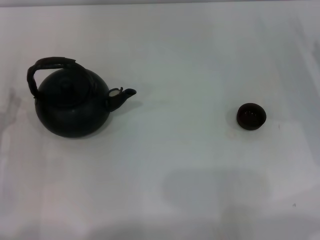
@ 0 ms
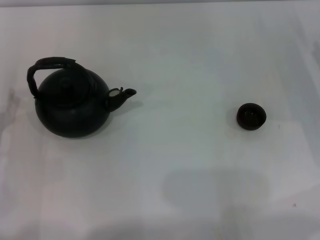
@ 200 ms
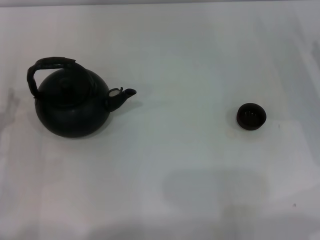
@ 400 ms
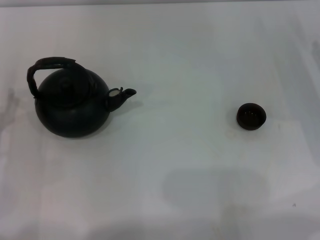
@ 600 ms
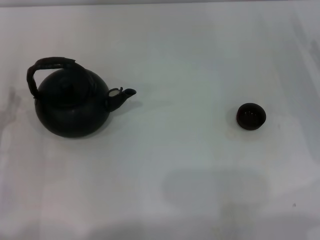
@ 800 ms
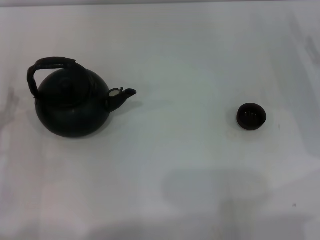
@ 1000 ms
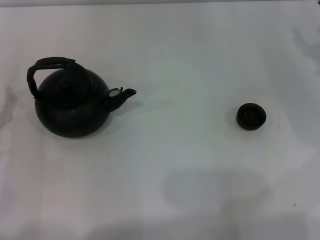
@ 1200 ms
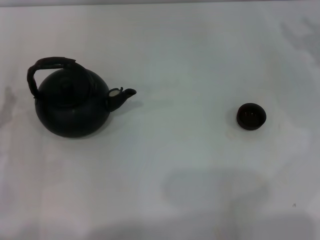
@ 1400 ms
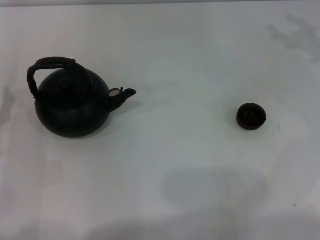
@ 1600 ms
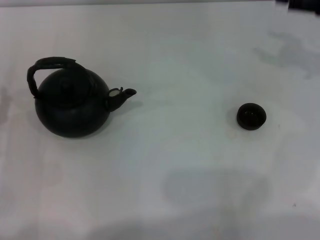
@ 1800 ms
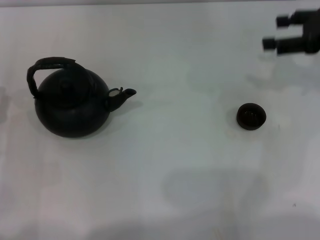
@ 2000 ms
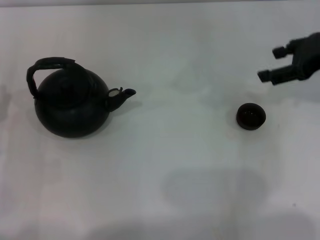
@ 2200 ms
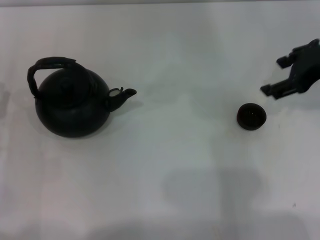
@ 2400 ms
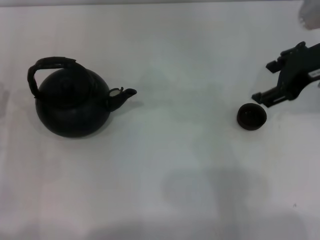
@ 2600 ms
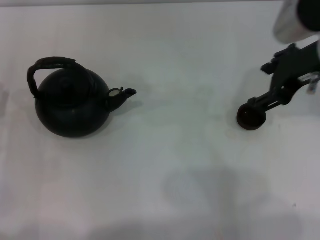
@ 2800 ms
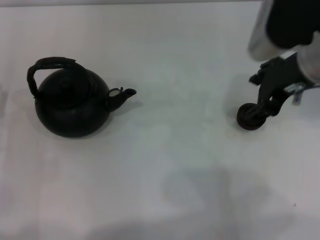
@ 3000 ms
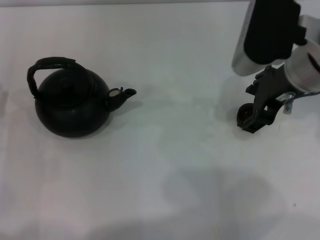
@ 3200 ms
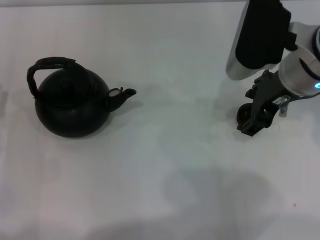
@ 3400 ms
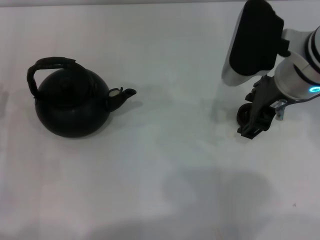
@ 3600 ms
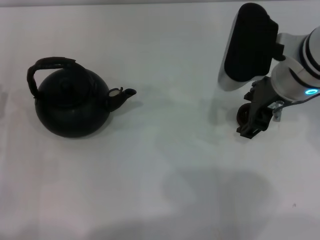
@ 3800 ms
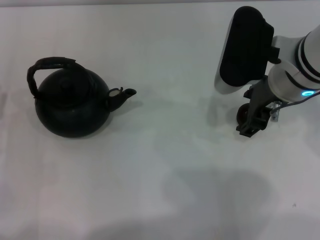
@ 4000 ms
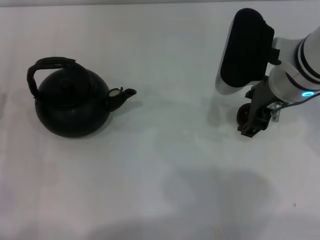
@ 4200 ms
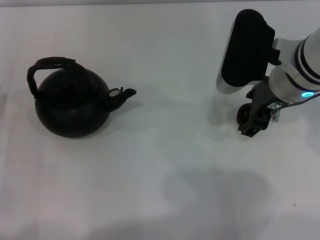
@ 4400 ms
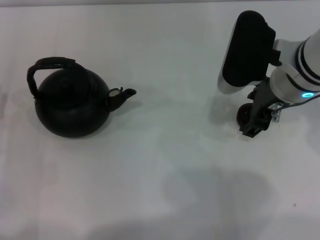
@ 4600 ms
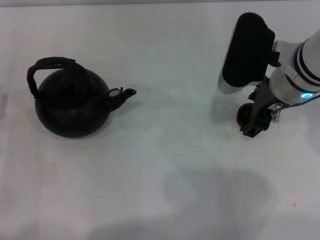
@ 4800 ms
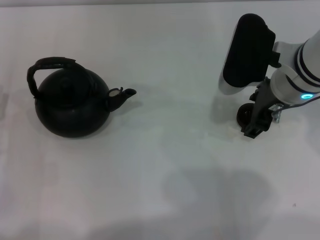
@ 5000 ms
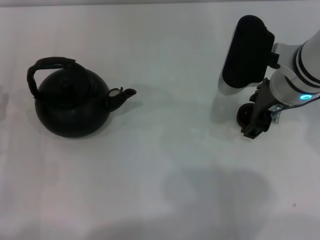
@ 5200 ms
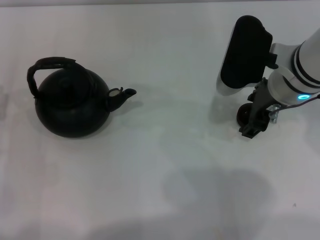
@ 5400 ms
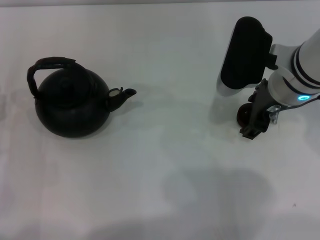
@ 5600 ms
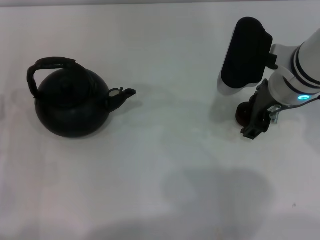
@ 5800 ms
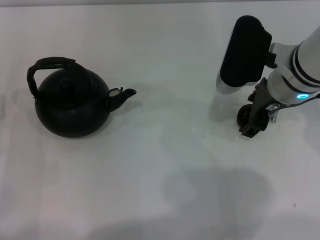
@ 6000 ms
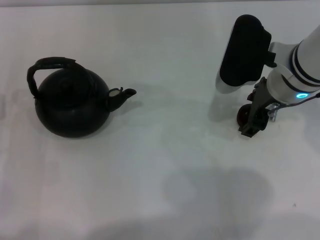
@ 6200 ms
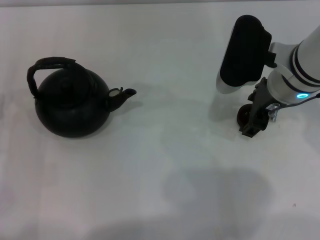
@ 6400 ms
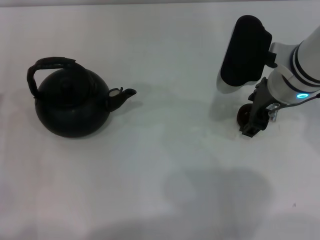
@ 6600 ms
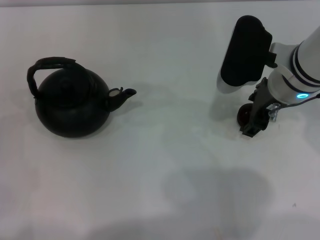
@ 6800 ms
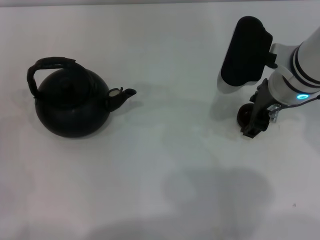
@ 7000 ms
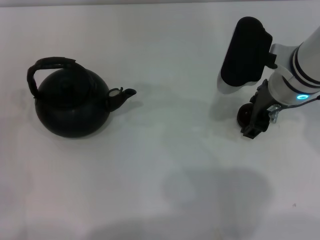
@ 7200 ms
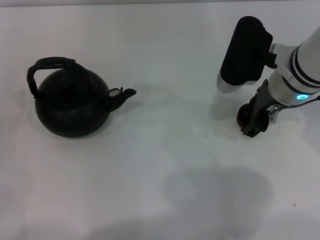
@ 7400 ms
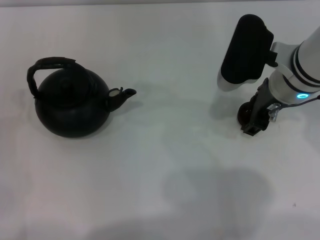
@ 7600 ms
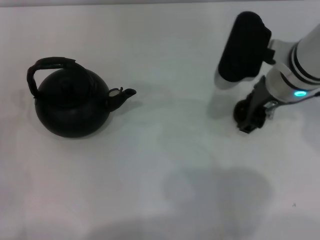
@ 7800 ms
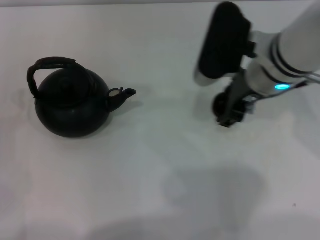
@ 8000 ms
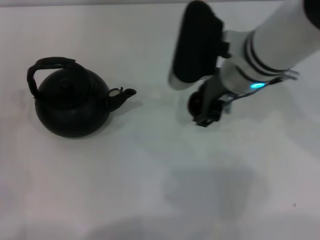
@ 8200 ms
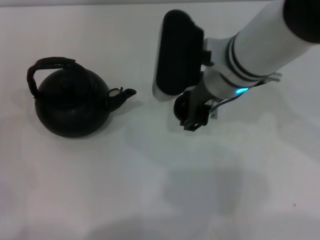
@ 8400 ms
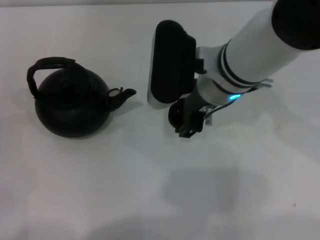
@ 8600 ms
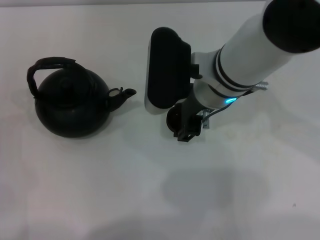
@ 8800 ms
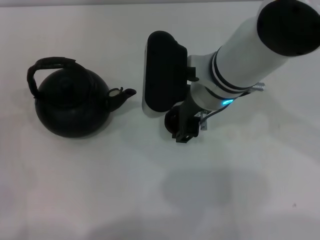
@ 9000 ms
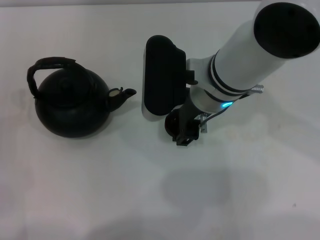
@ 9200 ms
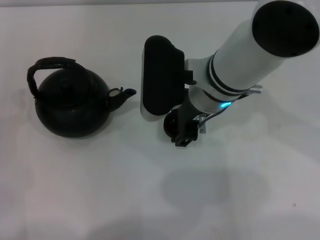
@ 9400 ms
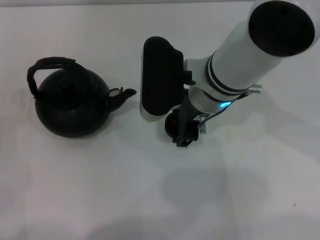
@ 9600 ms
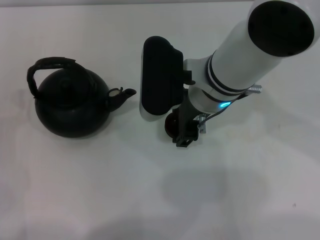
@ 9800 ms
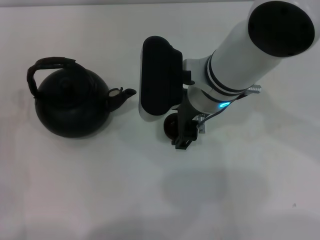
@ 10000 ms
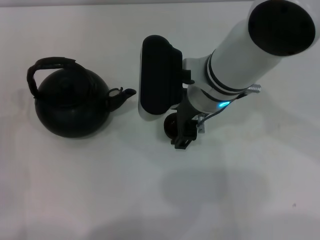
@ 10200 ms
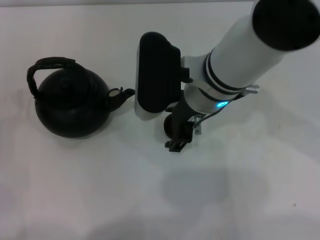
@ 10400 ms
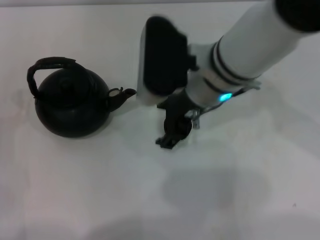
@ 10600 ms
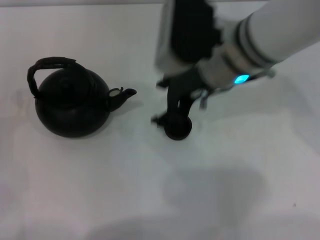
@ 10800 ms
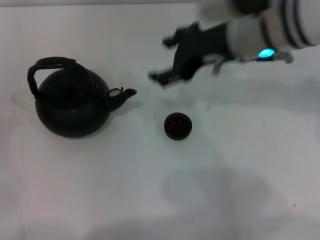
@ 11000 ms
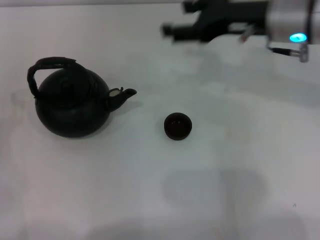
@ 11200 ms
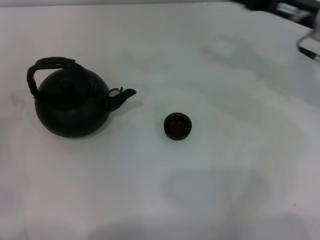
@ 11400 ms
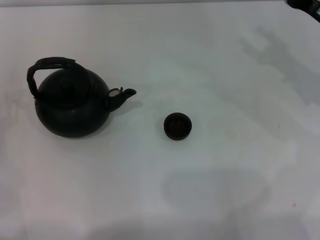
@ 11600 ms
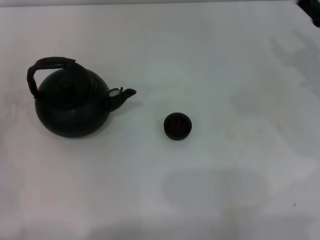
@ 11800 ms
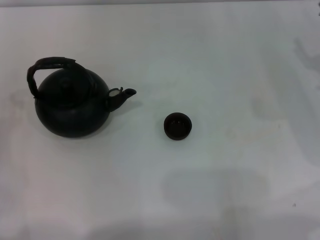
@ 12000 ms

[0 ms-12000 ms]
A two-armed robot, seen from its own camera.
Task of the whole recording: Grasp the handle of the teapot with one hand and pour tea into the teacup.
Step, 0 ms to 7600 ms: Pick up the teacup with the right gripper.
Step, 7800 ms to 10800 ms: Place the teacup in the center of view with the right gripper.
1600 ms to 3000 ms: The right gripper travels to the left by about 15 cm.
3000 ms to 4400 ms: The right gripper moves approximately 5 cm.
6000 ms to 7600 ms: The right gripper closes.
7600 ms to 9000 ms: The right gripper moves to the left, approximately 10 cm.
9000 ms to 10400 ms: The right gripper opens.
10400 ms to 12000 ms: The right gripper shifts roughly 30 cm to the right.

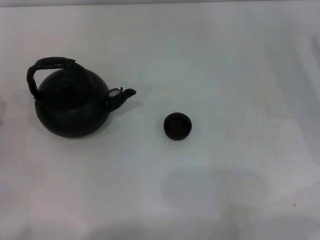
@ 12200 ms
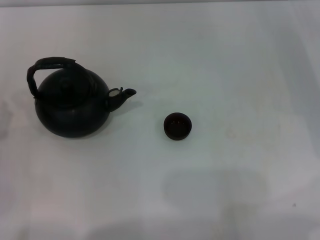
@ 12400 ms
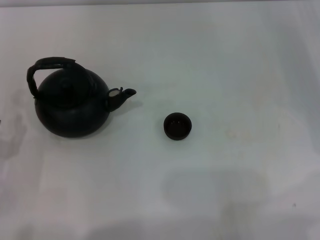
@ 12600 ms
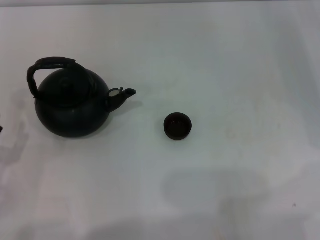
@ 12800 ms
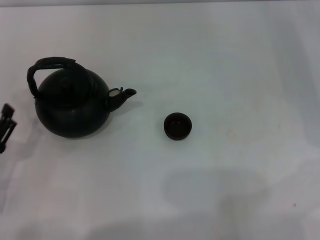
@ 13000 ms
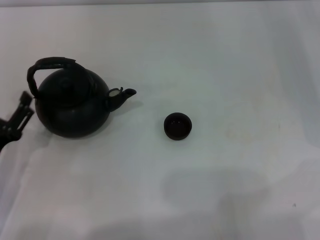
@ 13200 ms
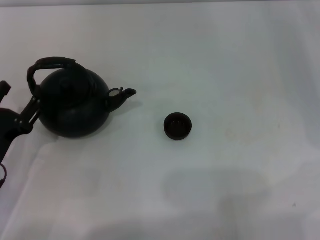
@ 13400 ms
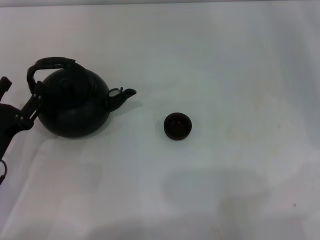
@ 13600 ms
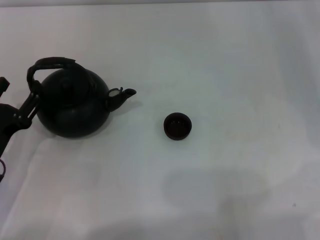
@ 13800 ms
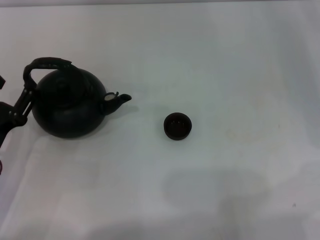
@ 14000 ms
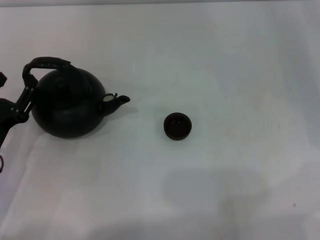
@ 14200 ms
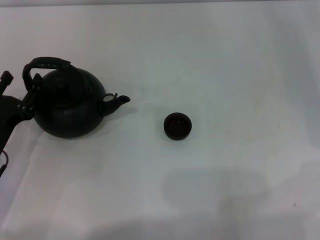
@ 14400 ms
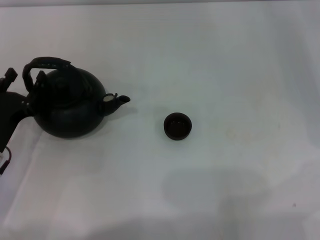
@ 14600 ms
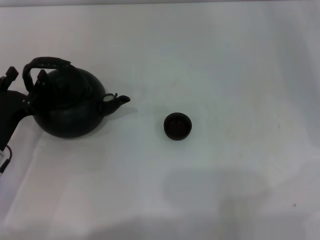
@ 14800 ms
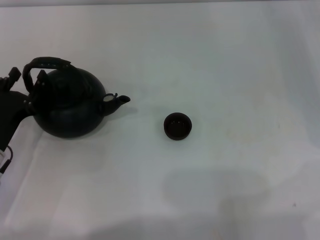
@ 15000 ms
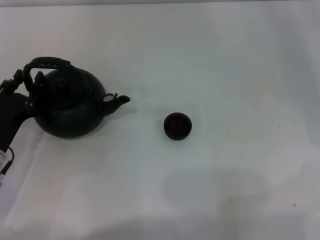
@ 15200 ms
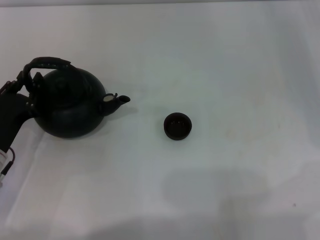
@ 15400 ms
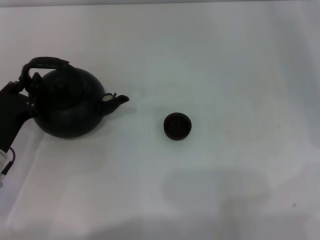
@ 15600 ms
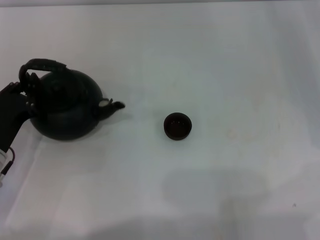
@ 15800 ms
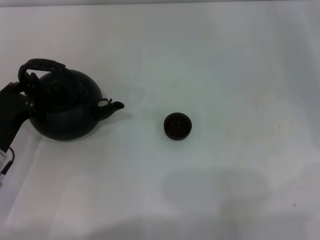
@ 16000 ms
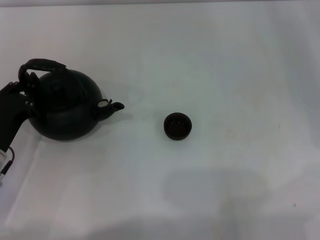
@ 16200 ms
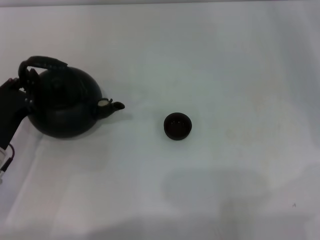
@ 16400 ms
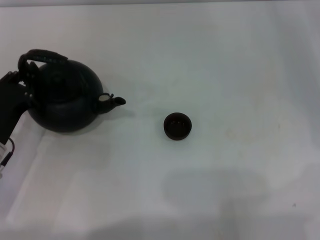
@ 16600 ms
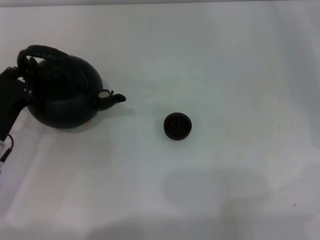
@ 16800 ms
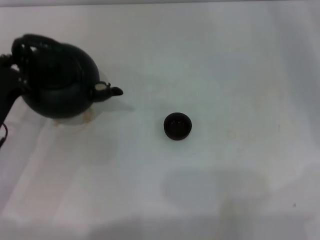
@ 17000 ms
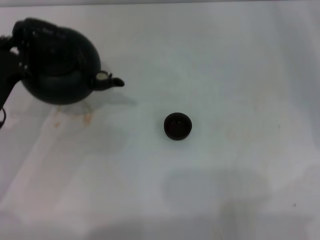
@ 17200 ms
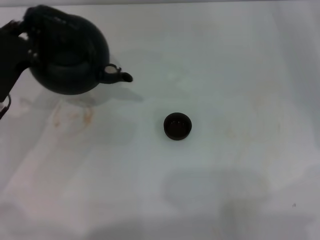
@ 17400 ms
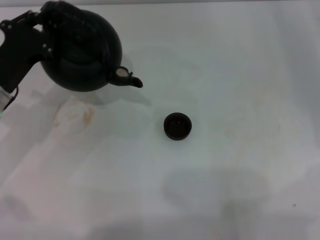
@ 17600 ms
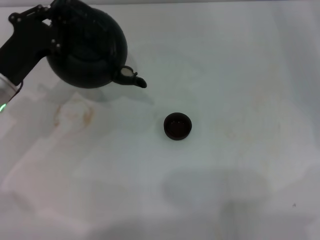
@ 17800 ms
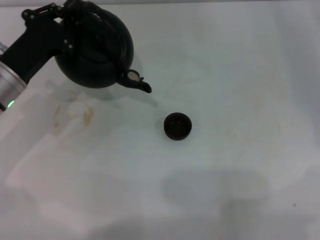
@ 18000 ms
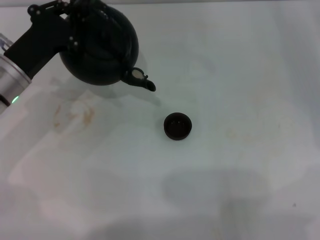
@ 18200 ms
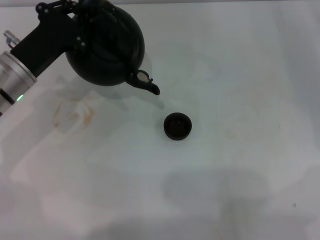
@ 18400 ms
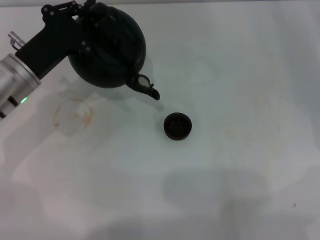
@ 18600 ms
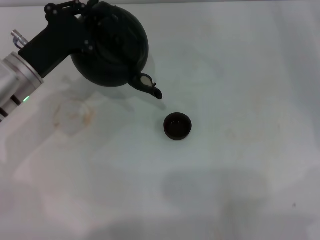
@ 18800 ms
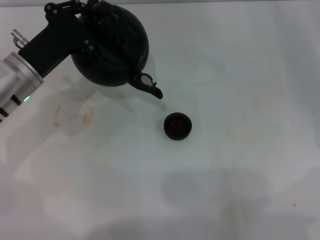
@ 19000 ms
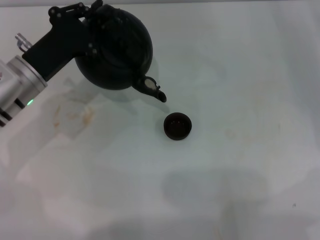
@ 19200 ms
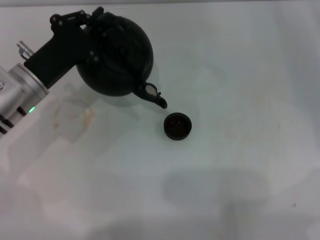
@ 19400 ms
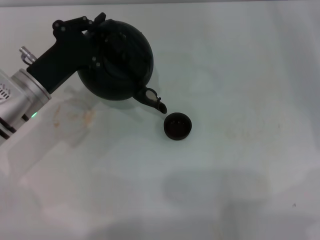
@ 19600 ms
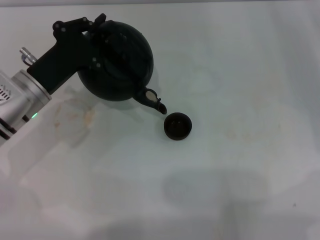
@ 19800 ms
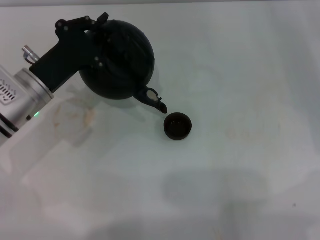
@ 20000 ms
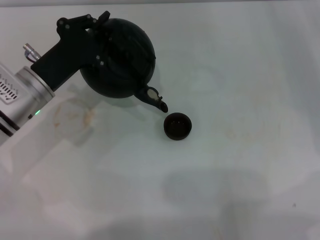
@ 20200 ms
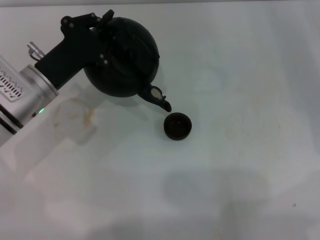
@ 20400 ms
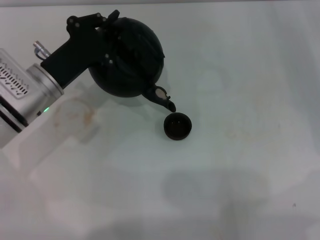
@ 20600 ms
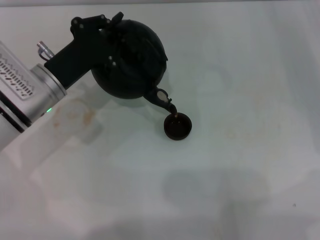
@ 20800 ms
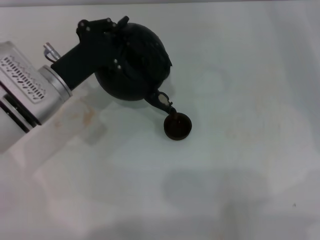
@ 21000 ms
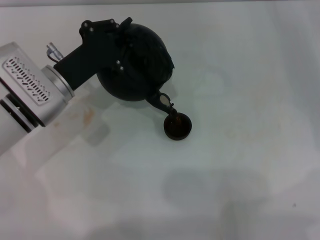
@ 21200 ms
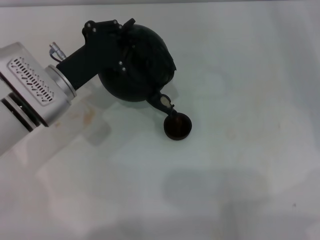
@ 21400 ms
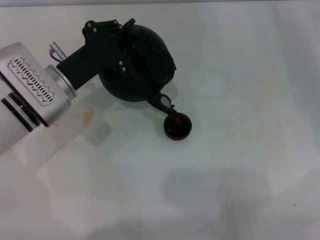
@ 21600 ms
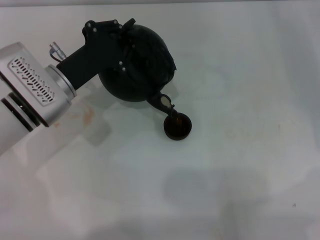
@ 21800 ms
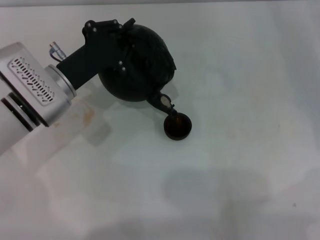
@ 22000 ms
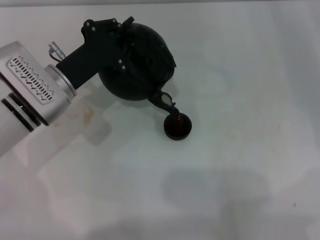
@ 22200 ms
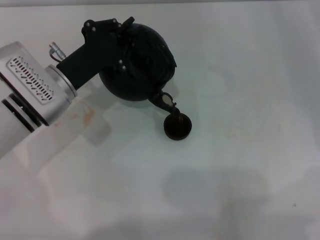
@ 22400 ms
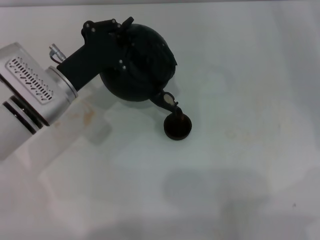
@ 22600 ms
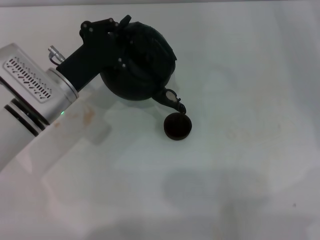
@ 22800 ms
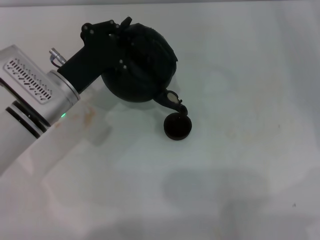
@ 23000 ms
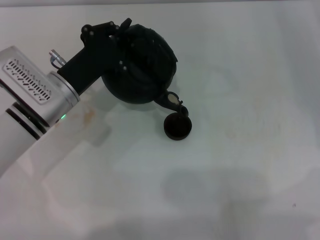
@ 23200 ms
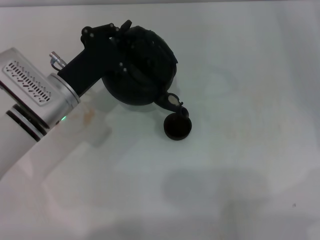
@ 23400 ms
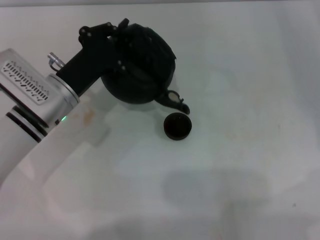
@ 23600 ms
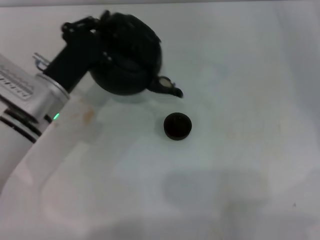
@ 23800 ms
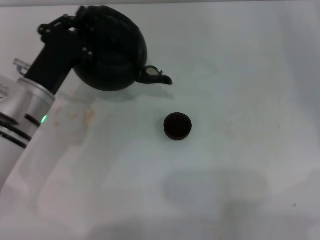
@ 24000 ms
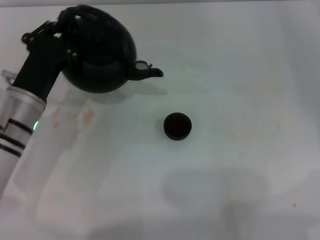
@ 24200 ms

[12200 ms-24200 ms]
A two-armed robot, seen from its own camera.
Task of the whole recording: Grasp the handle of the teapot with one hand and pour tea into the teacup.
Step, 12200 ms to 17400 ms: Pick up the teapot with the left gripper.
Step, 17600 ms to 24000 ms: Pour tea into the teacup with the left gripper.
13800 ms to 15200 ms: The grippers stay close to where they were, moving slightly.
15200 ms to 16600 ms: The left gripper closes its fingers.
16600 ms to 18200 ms: The left gripper heads forward and upward, covering some 10 cm.
18200 ms to 21200 ms: There are only small adjustments of the grippers.
21200 ms to 22600 ms: Both grippers stay about where they are.
